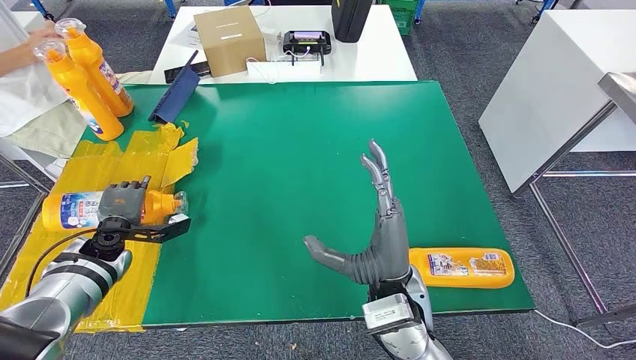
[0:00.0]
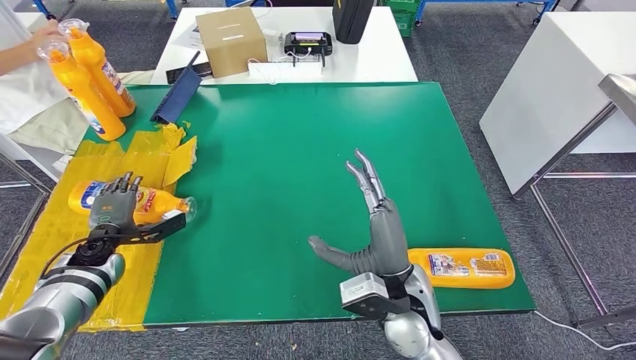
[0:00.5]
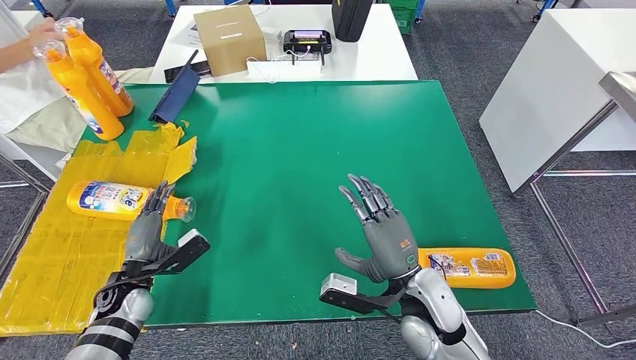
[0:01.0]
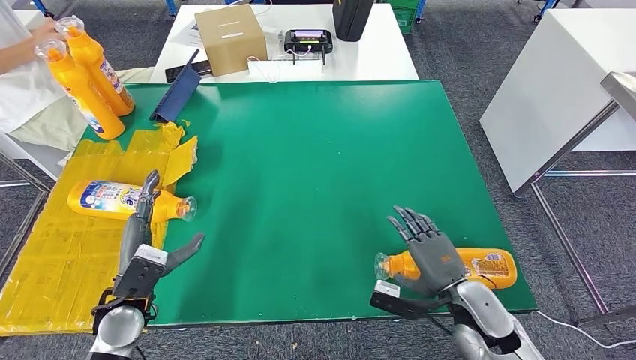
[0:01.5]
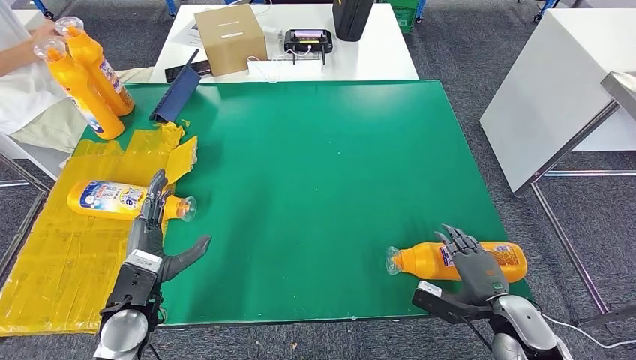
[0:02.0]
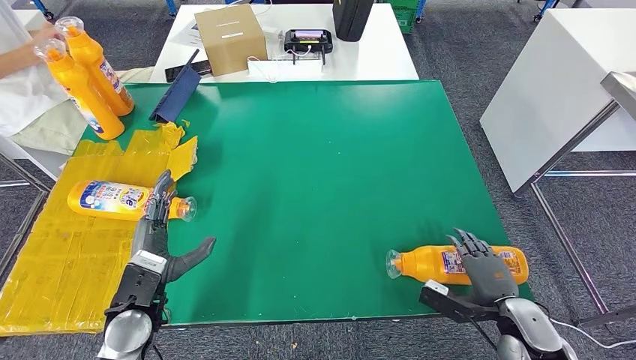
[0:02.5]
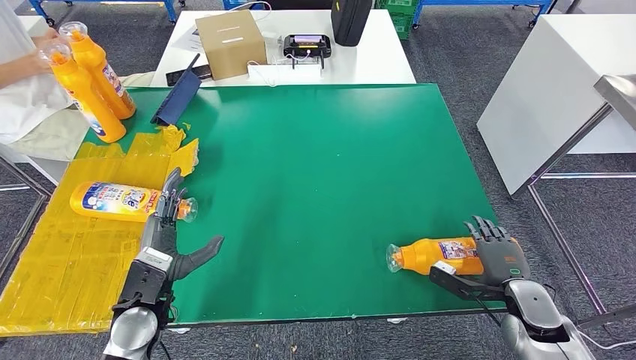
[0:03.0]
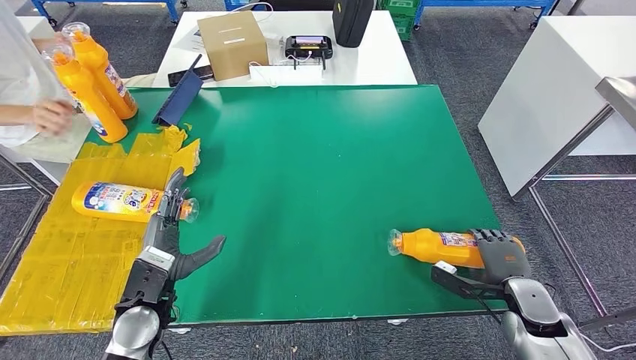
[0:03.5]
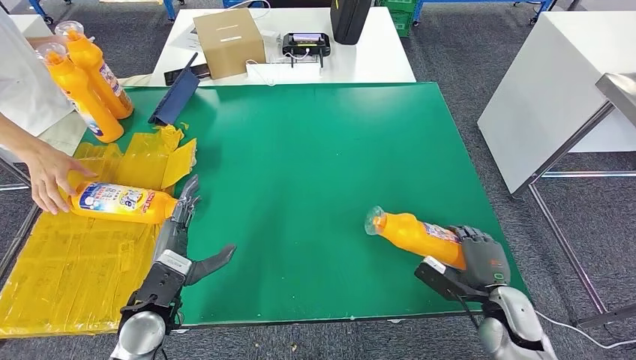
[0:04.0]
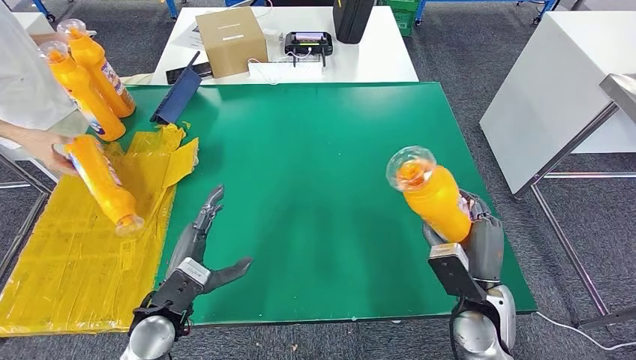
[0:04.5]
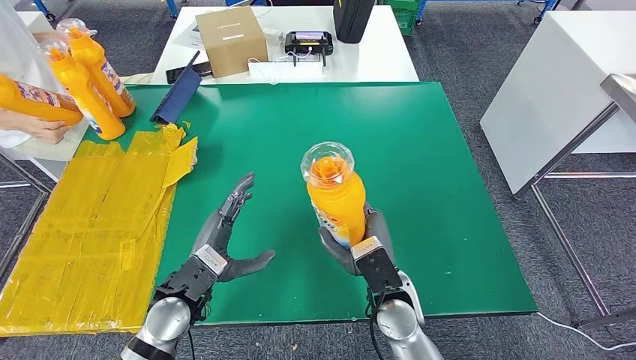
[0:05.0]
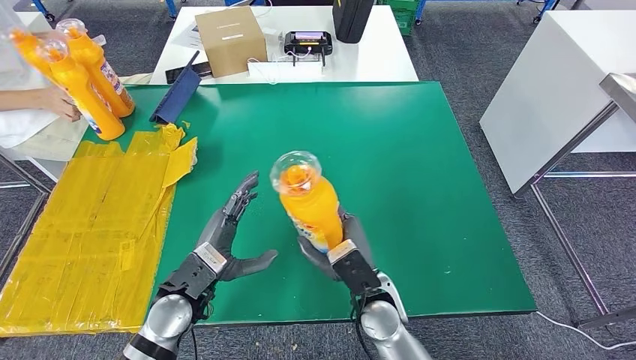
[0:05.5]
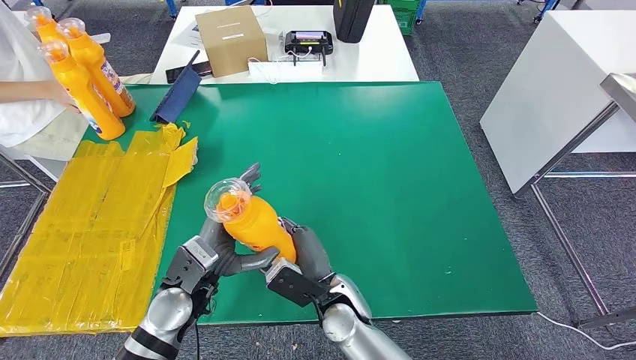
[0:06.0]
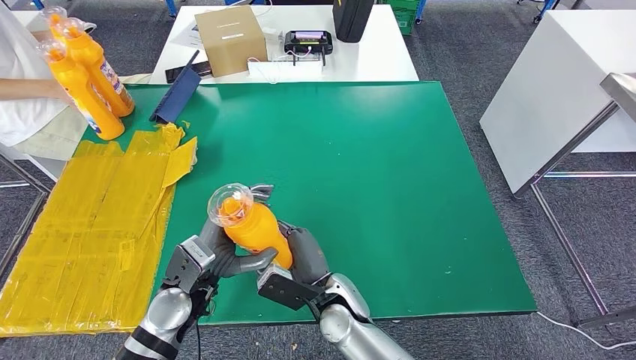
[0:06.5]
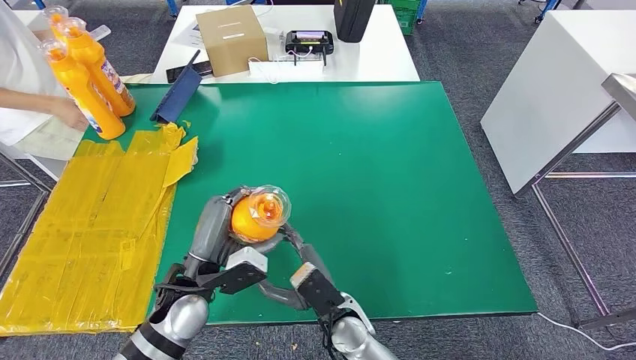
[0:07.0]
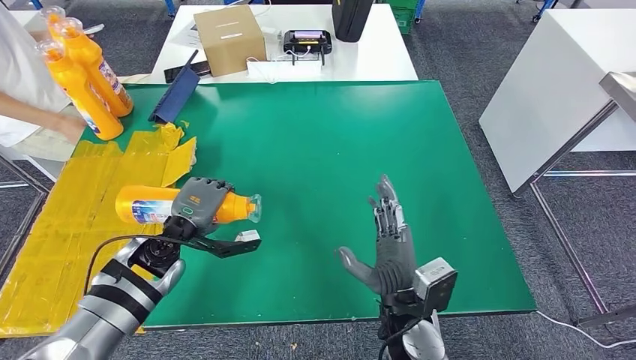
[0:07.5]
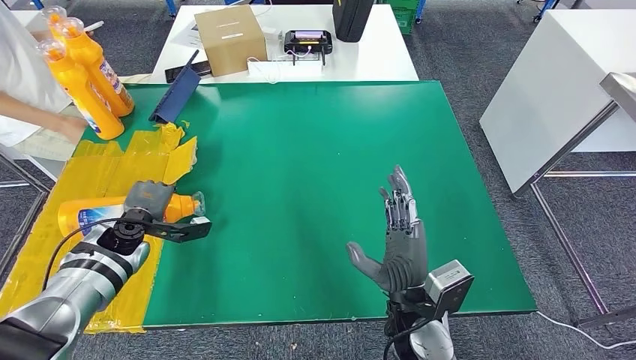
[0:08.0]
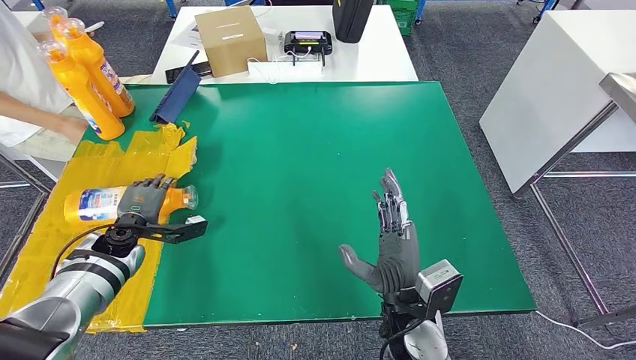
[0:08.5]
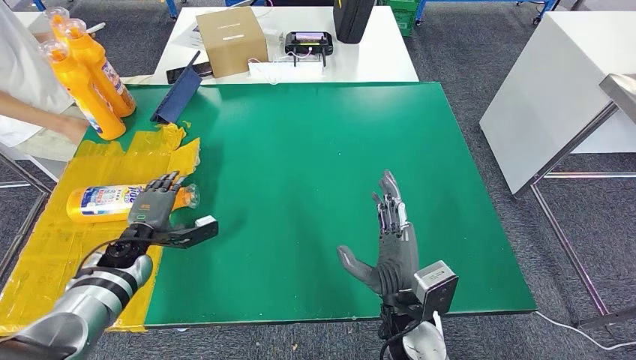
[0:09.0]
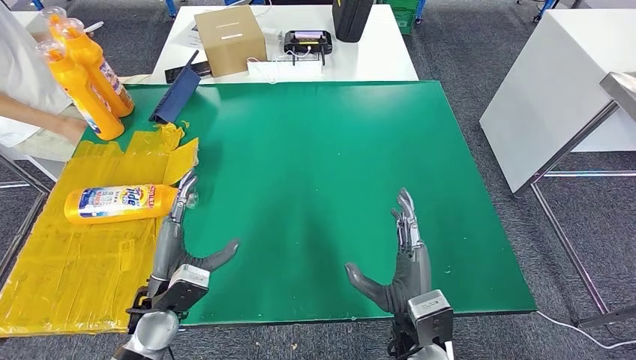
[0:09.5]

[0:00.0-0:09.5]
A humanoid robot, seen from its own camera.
Step, 0:01.5 to 0:05.0: Pick up the fast-moving consumer goods bottle from the table.
Step, 0:05.5 to 0:09.5: Flip the fast-moving consumer goods bottle to the front side.
0:05.5 to 0:07.5: The right hand shifts by about 5 cm. Meanwhile the left hand shifts some 10 cm forward and to the left.
0:07.5 to 0:09.5: The left hand is displaced backward by some 10 cm.
